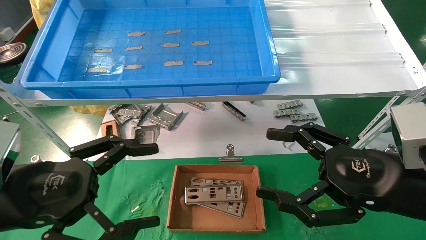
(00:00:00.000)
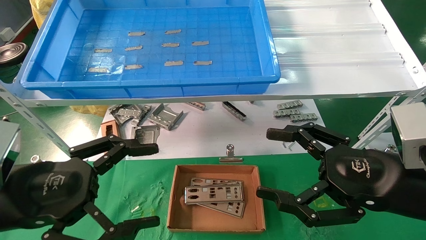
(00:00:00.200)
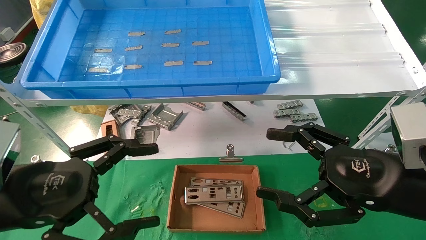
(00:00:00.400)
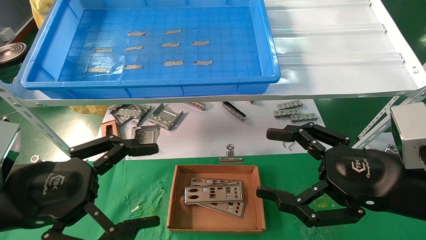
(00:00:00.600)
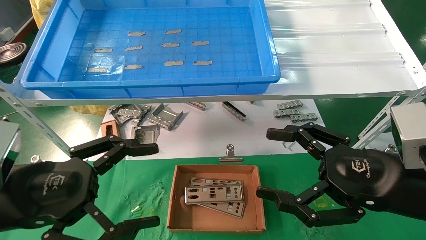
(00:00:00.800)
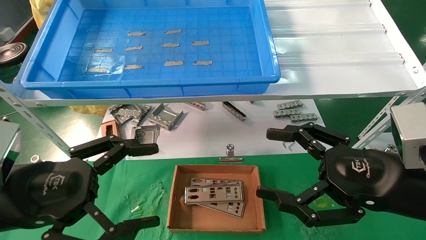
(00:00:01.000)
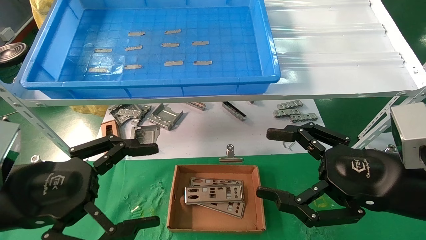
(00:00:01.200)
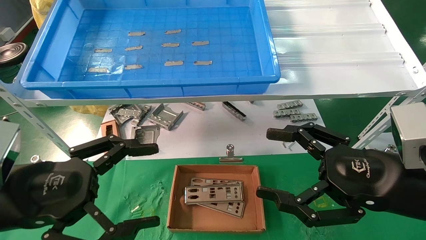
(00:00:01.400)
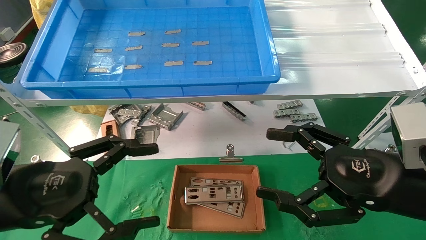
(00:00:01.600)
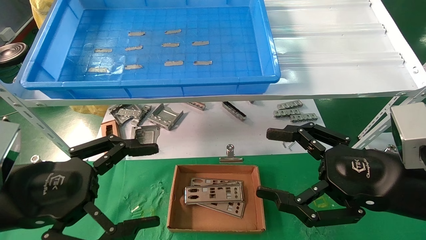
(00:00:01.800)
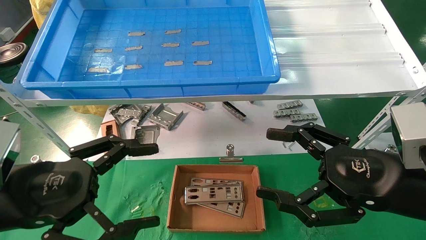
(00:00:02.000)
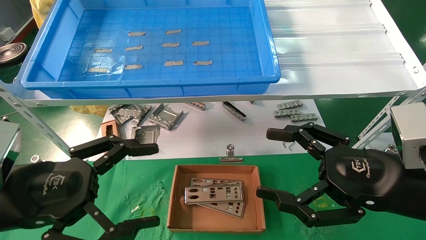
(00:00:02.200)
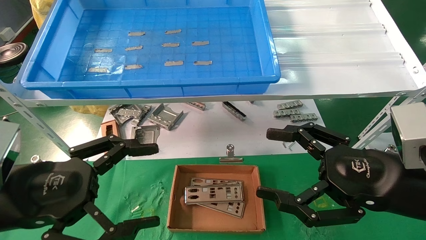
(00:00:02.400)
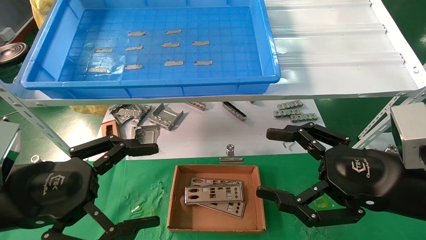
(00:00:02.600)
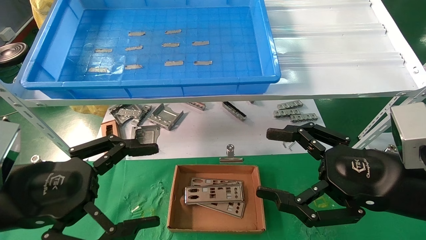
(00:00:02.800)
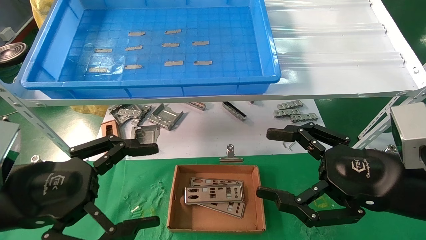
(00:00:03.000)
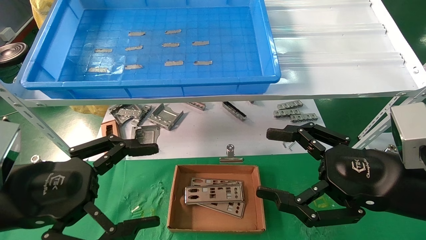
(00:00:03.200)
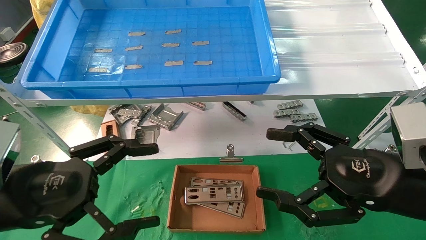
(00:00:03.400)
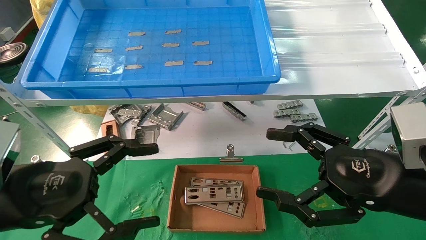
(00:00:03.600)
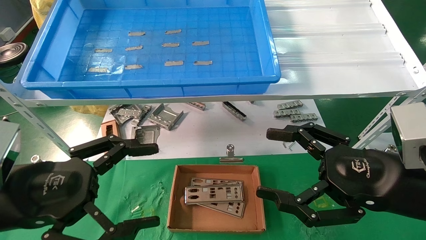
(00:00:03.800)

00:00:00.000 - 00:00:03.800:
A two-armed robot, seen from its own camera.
Task of the whole recording: pick up the parts on the tray and put them in the cardboard box.
00:00:00.000 - 00:00:03.800: Both grippers stay put.
